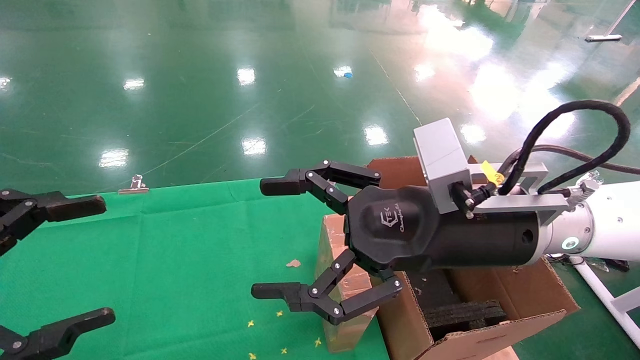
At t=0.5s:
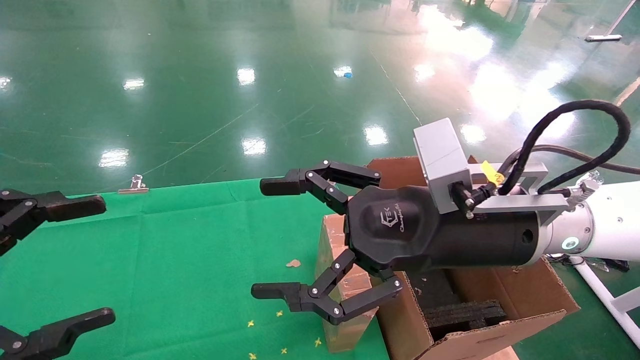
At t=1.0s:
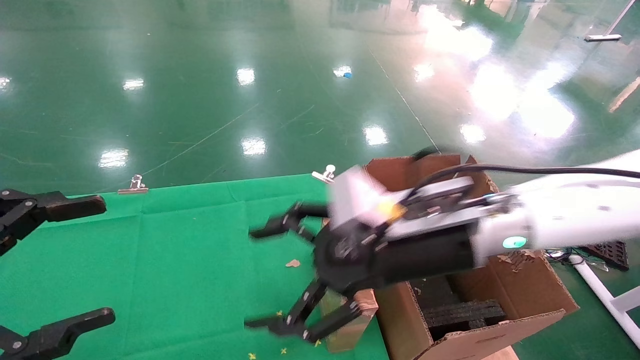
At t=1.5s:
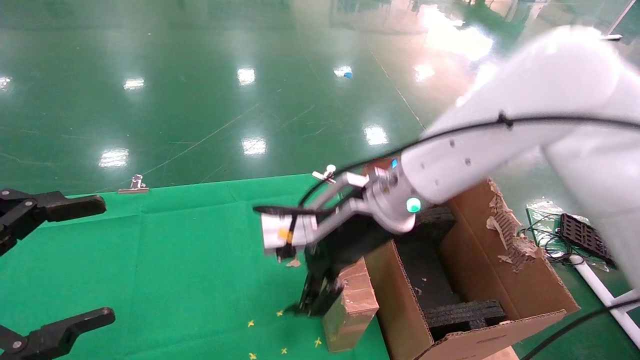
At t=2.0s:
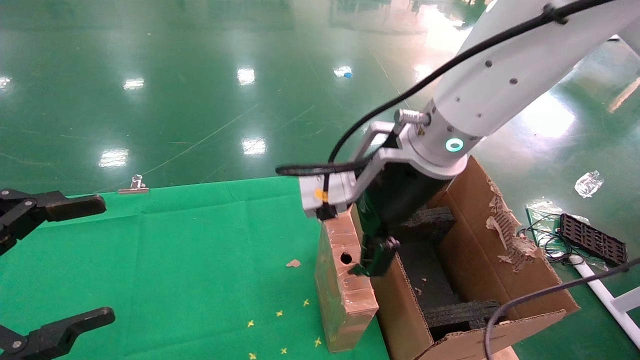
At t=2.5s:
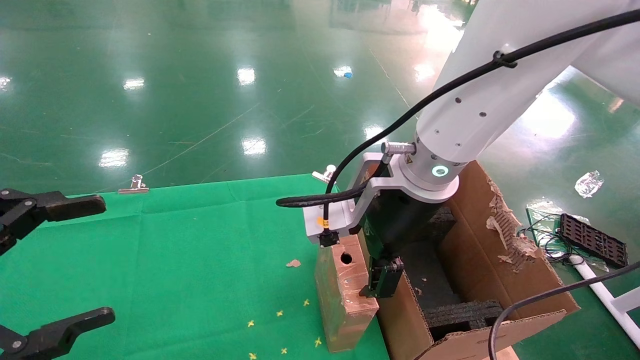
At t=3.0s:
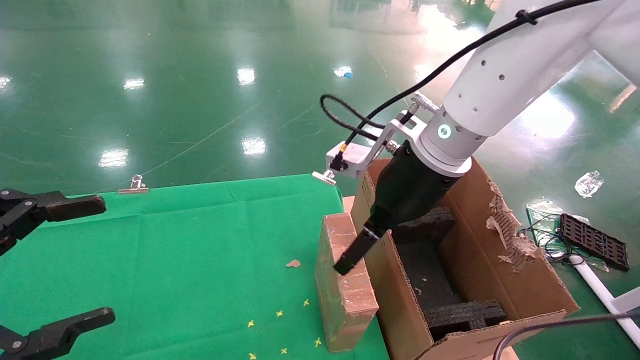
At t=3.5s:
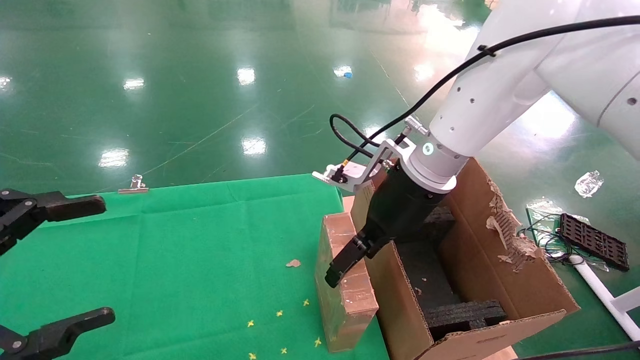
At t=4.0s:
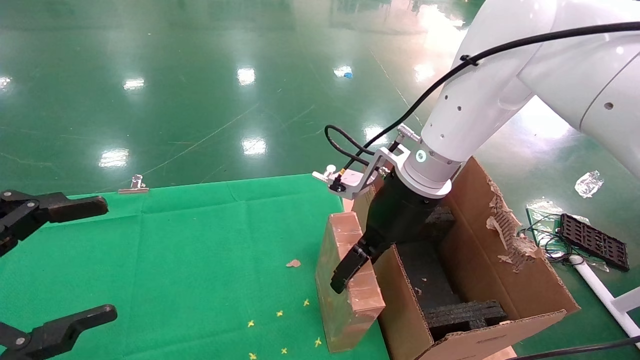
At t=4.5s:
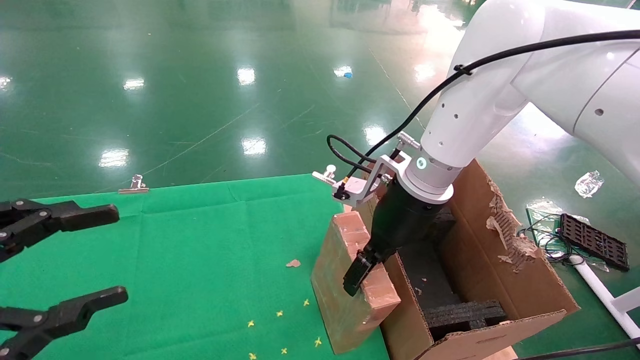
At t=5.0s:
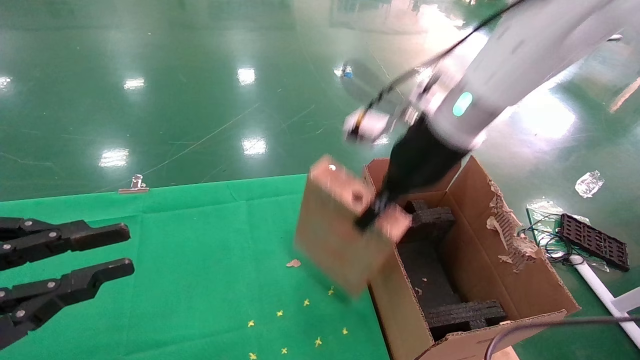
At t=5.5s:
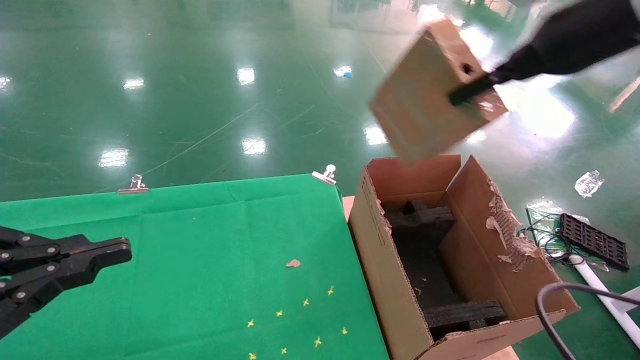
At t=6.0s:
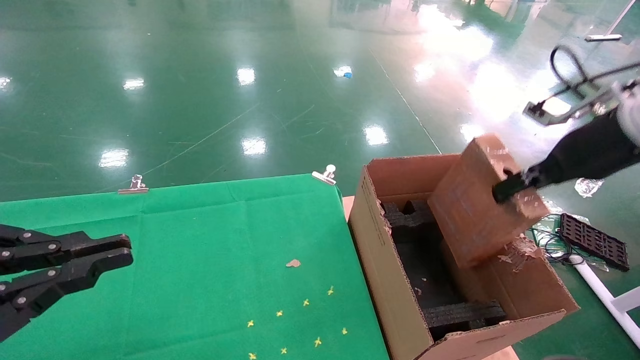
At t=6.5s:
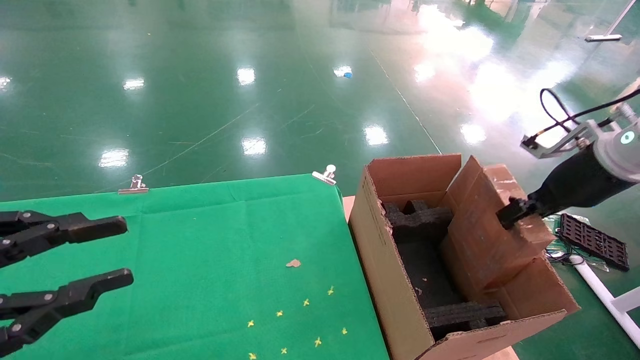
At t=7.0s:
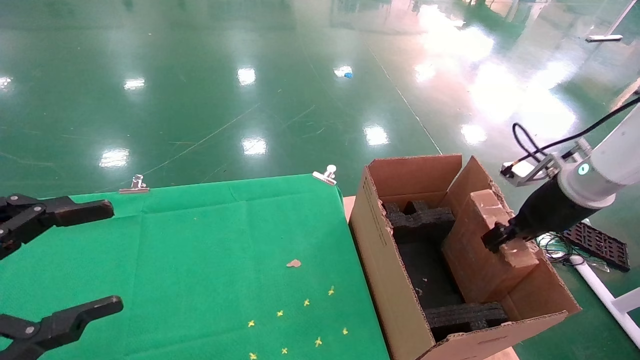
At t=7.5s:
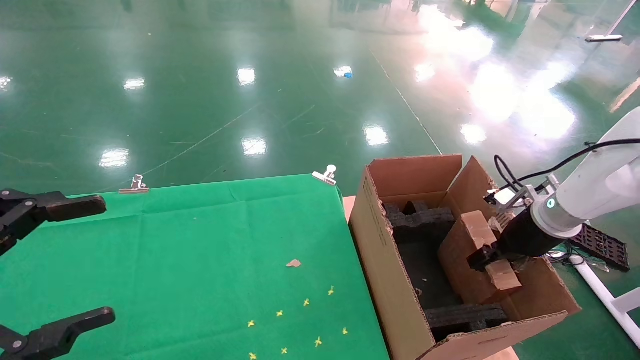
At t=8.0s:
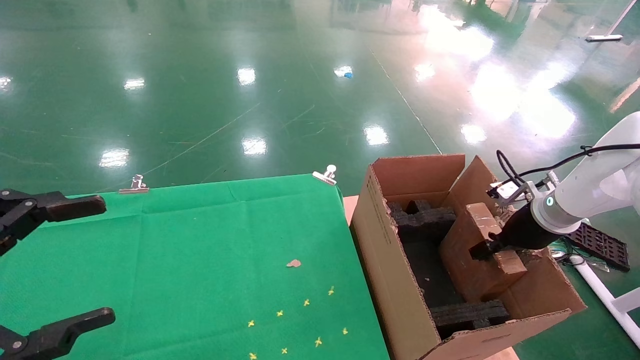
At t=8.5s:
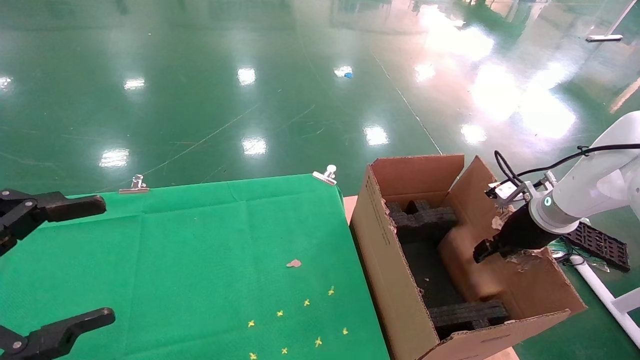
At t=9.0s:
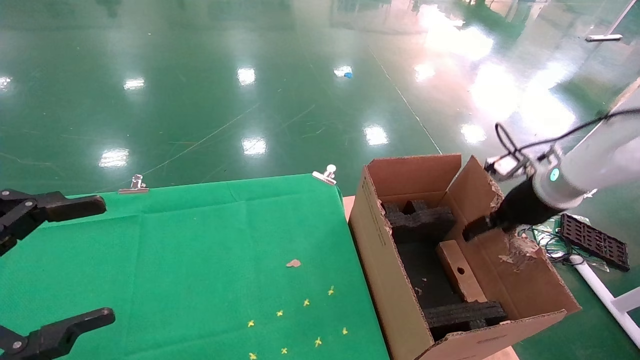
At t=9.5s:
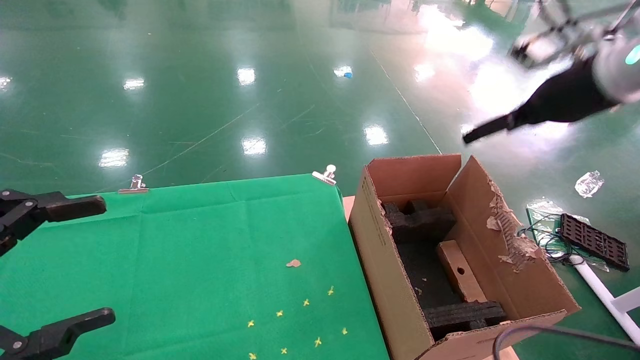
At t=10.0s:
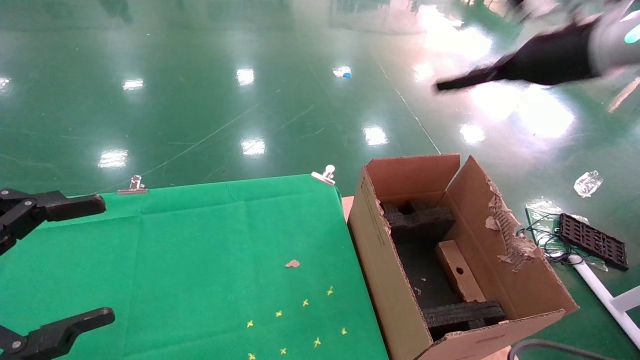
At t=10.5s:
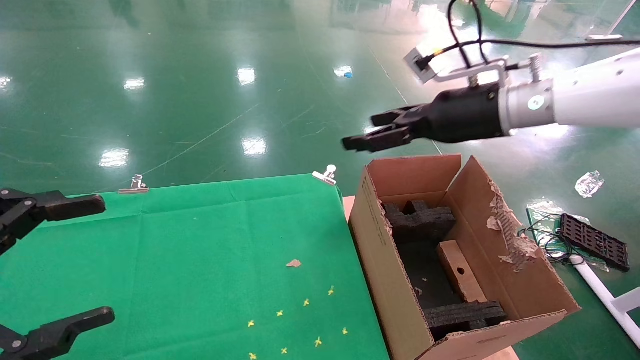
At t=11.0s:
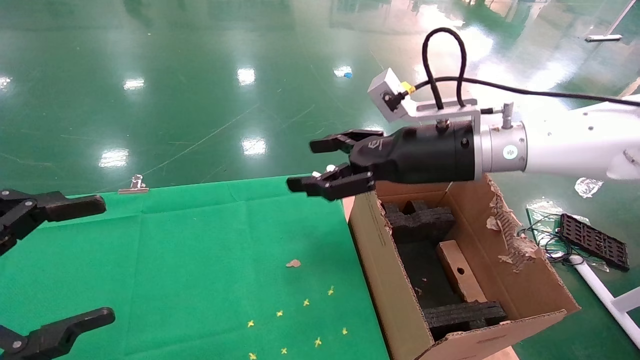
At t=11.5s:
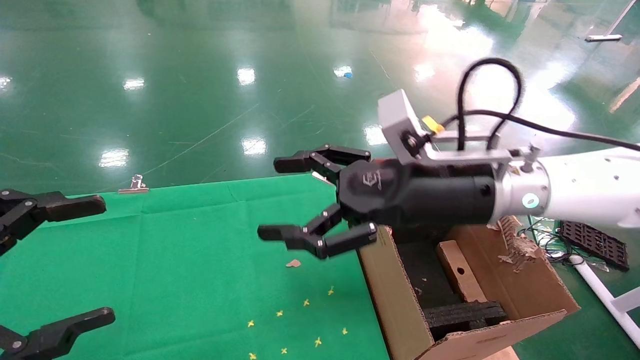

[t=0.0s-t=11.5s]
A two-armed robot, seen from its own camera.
Task of the whole recording: using a robotic arm to pick up a cardboard box and palace it the carton.
Step, t=1.0s to t=4.5s: Pick up the mouse and the power cord paper box.
Step, t=5.0s to t=8.5s: Place the mouse and the power cord paper box into the container.
t=0.0s to t=2.0s: The right gripper heads forward and to the left, covering roughly 10 cm.
t=2.0s to t=4.0s: The right gripper moves forward, approximately 5 cm.
t=4.0s to t=6.0s: The right gripper travels to the right by about 25 cm, and closes up. The left gripper closes.
t=6.0s to t=7.5s: The right gripper goes about 15 cm downward, while the left gripper opens.
t=7.5s to t=9.5s: The right gripper shifts some 20 cm upward, and opens.
t=9.5s to t=11.5s: The right gripper shifts roughly 25 cm to the left and downward.

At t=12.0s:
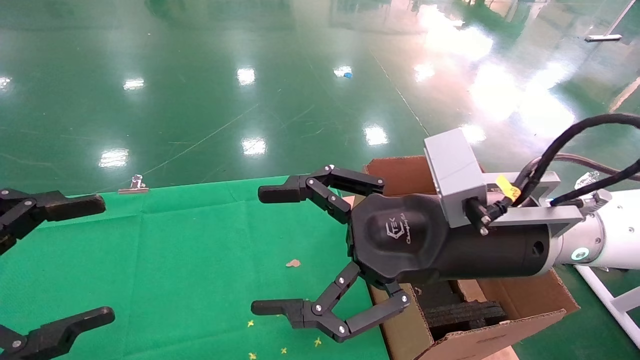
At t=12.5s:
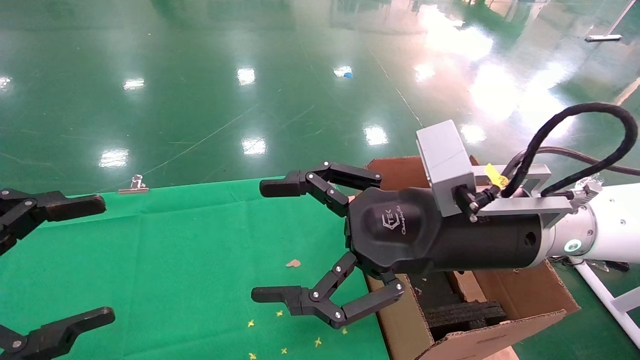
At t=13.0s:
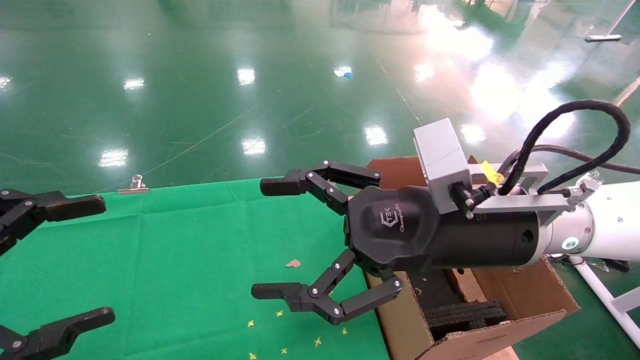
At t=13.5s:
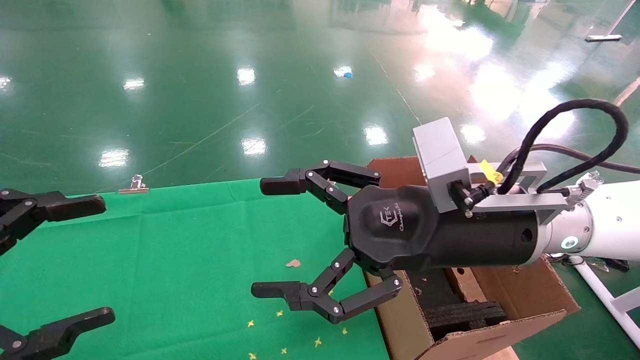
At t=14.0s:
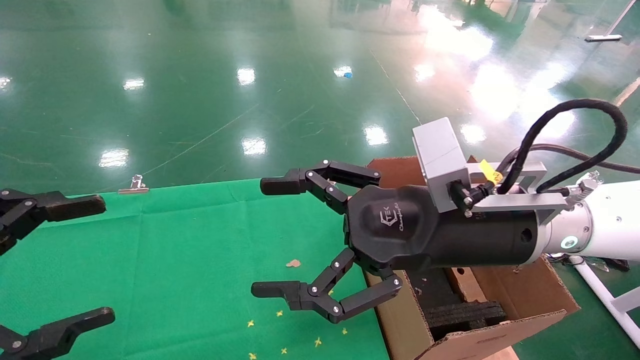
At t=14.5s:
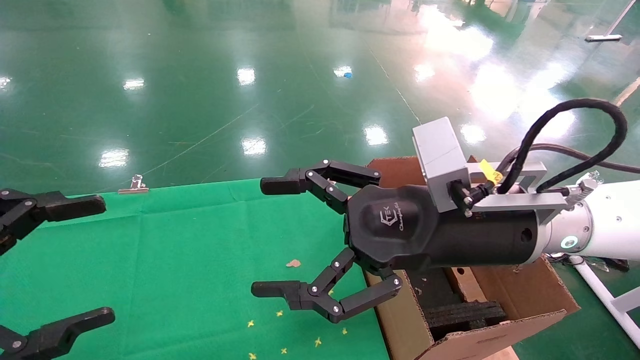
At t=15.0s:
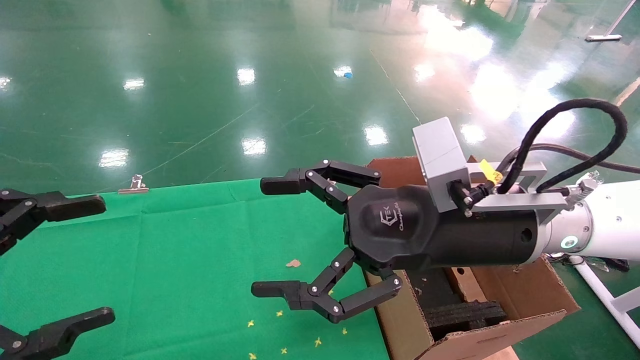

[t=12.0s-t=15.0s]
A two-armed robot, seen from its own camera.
Task of the whole recording: using a robotic arm to pick up a cardboard box and palace it the carton.
t=12.0s to t=15.0s: Both grippers stay put.
